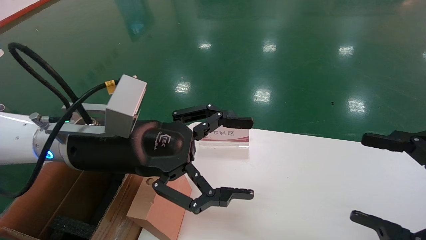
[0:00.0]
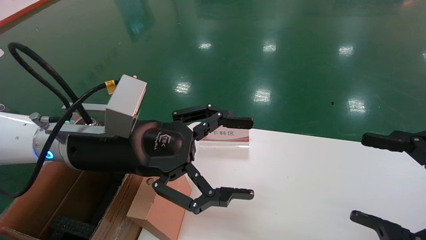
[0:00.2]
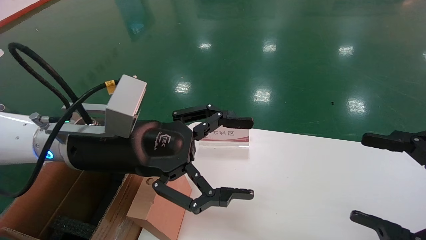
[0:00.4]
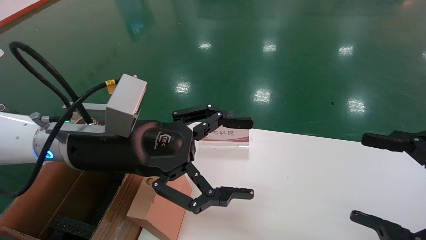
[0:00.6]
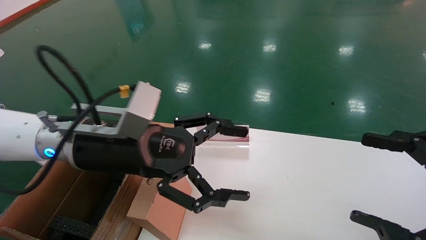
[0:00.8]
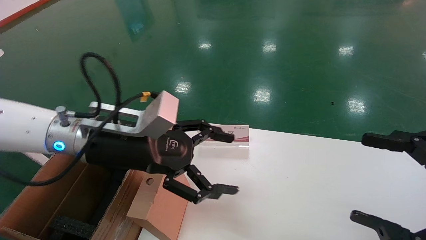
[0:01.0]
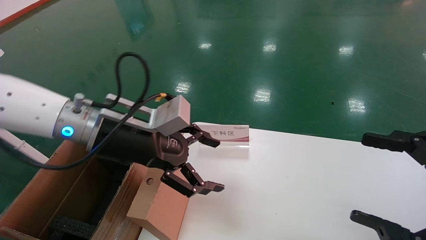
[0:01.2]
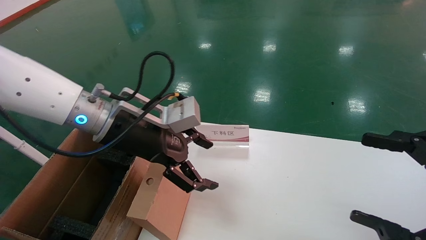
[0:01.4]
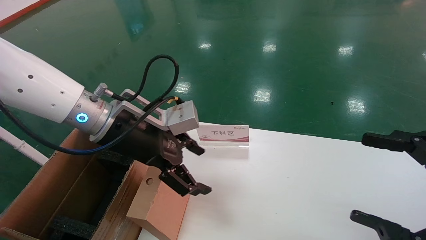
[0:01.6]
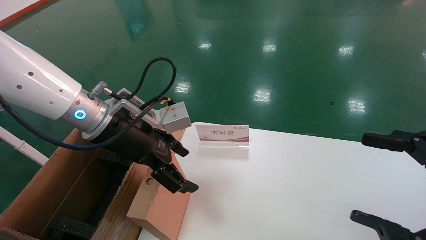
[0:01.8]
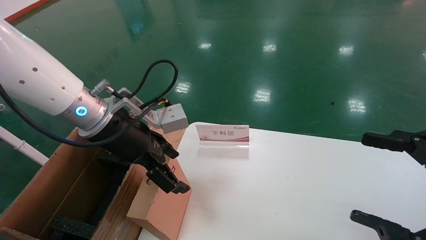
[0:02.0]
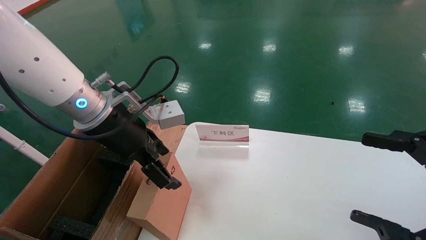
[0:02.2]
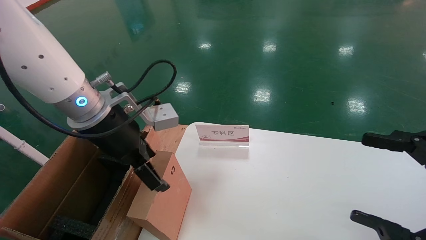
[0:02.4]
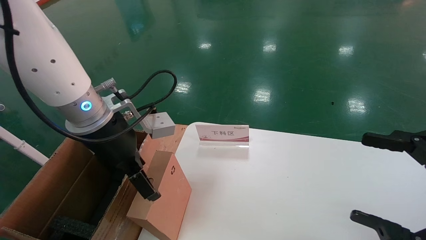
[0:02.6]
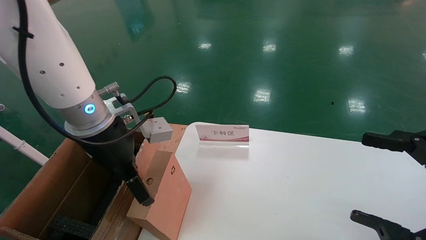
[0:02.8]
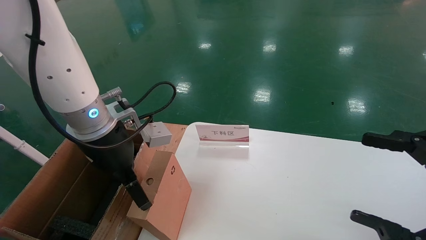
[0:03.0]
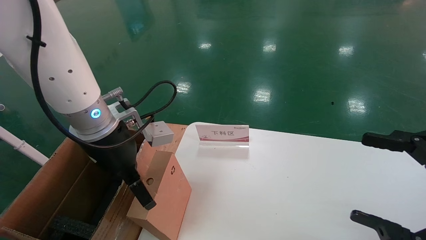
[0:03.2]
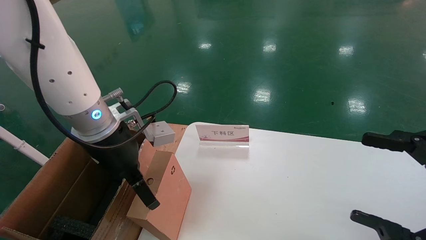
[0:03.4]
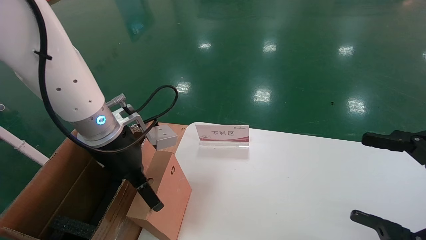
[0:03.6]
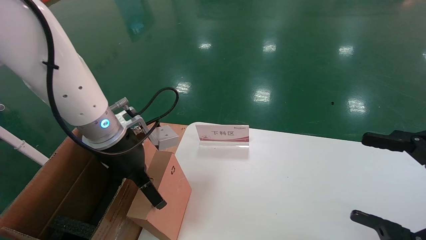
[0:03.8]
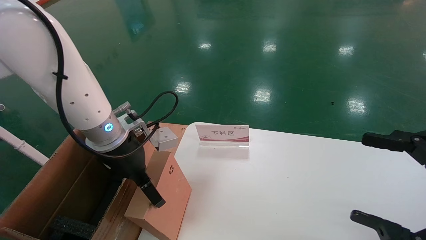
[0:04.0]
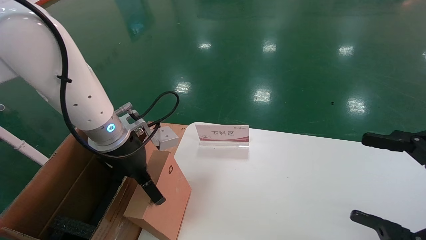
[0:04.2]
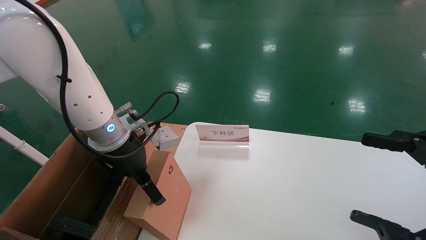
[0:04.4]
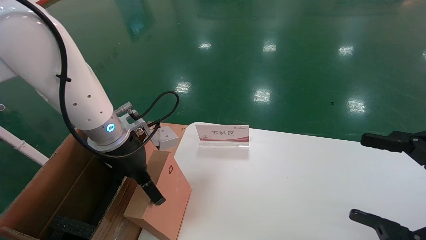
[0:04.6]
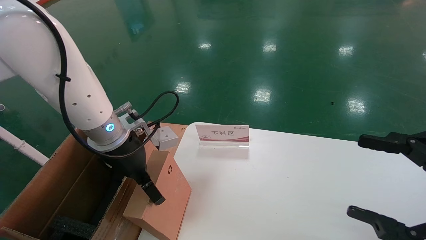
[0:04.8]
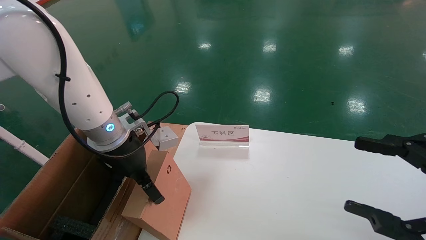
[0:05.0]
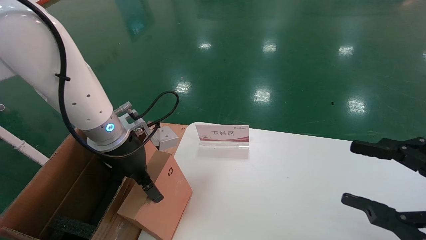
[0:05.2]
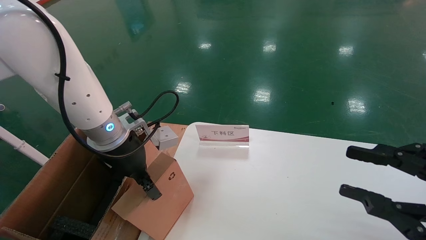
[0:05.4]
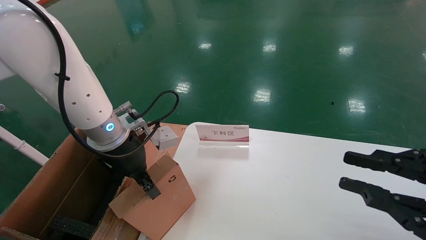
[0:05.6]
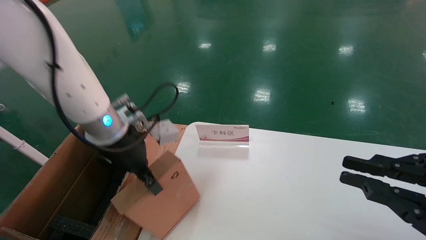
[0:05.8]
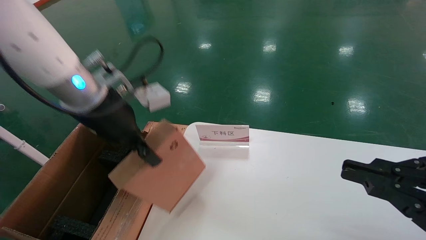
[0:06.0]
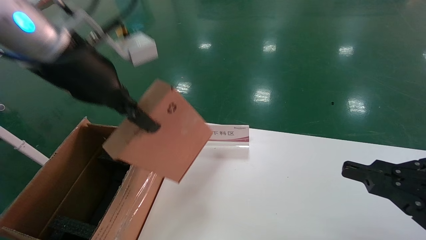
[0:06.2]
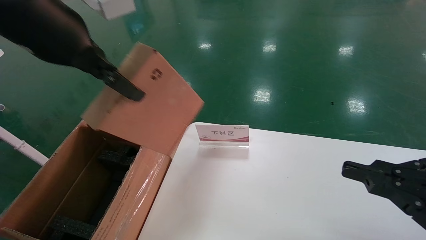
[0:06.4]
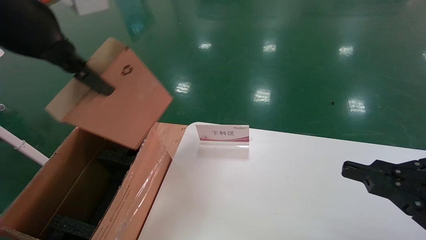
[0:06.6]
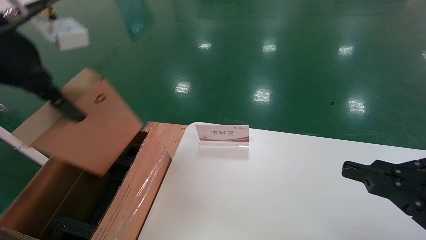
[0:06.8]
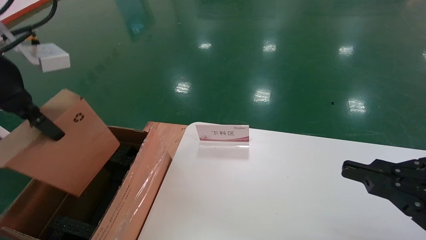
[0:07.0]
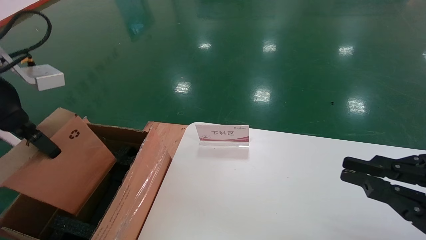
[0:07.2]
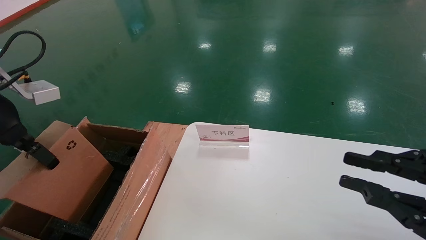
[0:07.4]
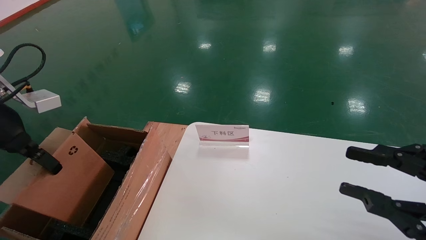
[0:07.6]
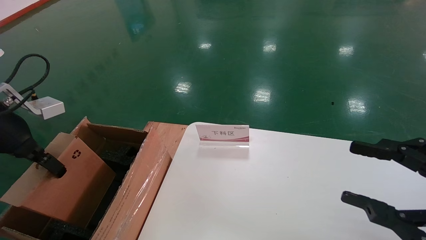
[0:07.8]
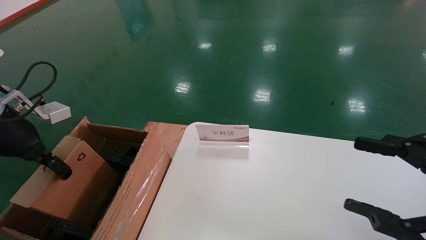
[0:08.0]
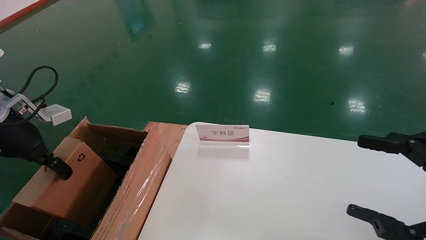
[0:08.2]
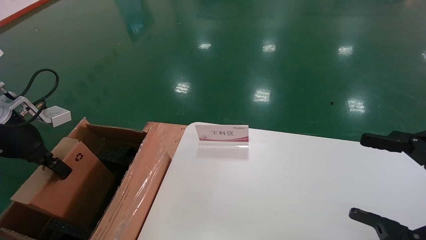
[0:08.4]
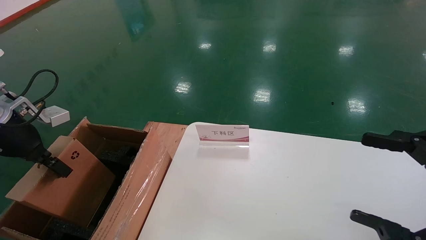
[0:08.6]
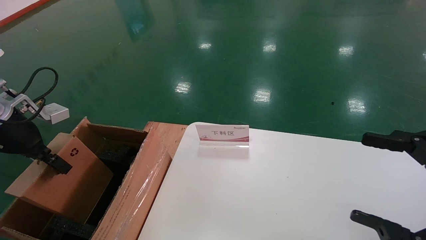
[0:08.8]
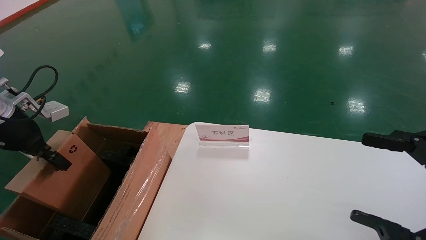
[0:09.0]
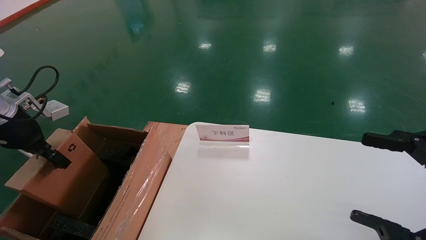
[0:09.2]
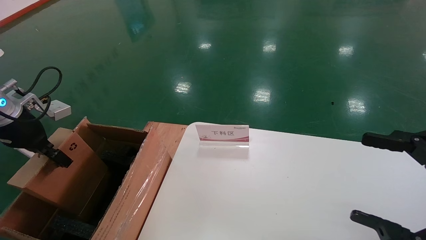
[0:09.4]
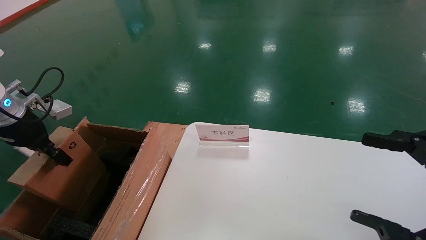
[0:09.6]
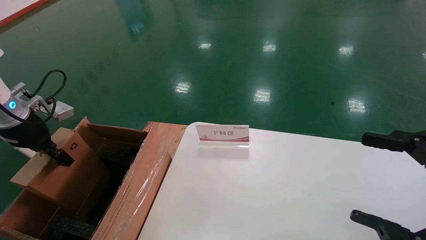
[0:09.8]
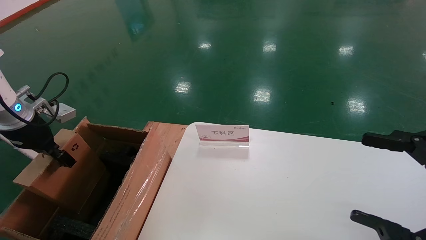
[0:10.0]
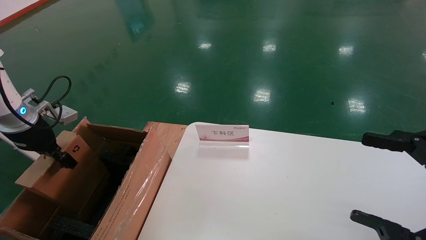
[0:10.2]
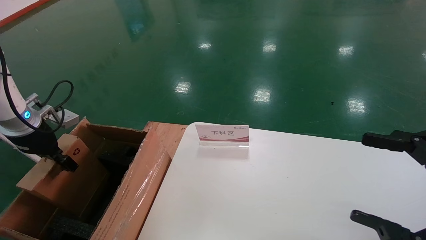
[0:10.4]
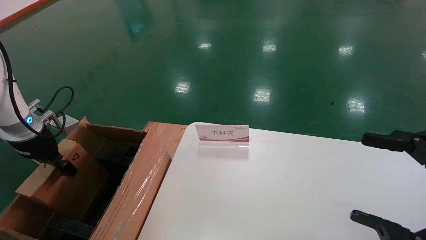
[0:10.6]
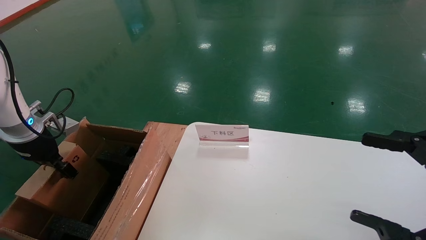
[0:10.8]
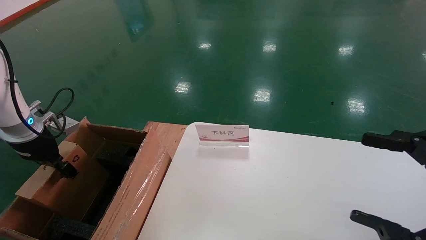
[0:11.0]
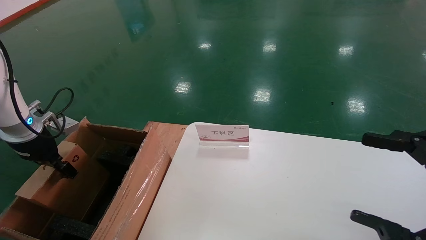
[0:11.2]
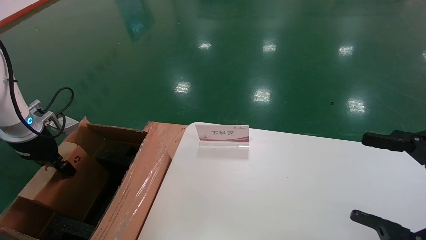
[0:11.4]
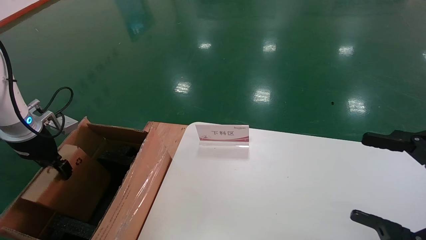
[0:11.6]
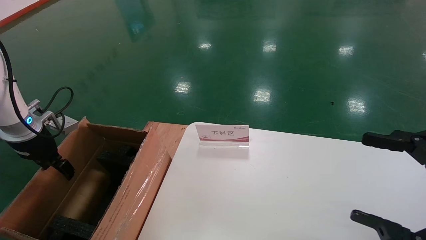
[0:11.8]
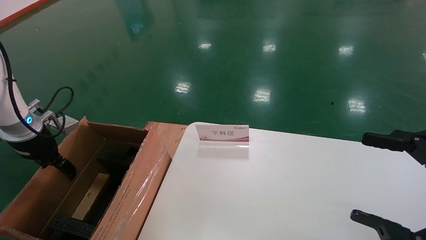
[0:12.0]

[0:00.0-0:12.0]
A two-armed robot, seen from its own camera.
Task of the whole recording: pick up the small cardboard box and load it into the large cardboard box.
Step, 0:01.0 to 0:05.0: Pick up the mouse and power cord box.
Step, 0:05.2 to 0:11.8: Place the mouse and power cord box into the case.
0:00.0 to 0:01.6: The left gripper moves forward, some 5 cm.
0:03.0 to 0:04.4: The left gripper shifts by roughly 5 cm.
0:04.4 to 0:06.0: The left gripper goes roughly 10 cm upward, and closes its fingers; the right gripper closes.
0:06.0 to 0:07.6: The left gripper shifts approximately 20 cm to the left.
0:07.6 to 0:09.0: The right gripper opens its fingers. Meanwhile the left gripper heads downward, to the left and forward, covering some 10 cm.
0:09.0 to 0:10.4: The left gripper moves about 5 cm.
0:10.4 to 0:12.0: The left gripper opens.

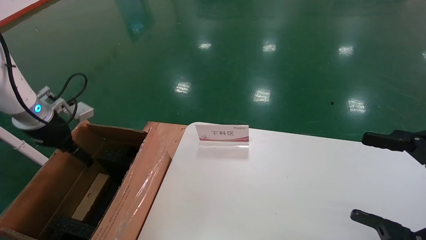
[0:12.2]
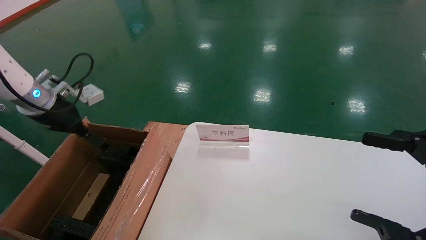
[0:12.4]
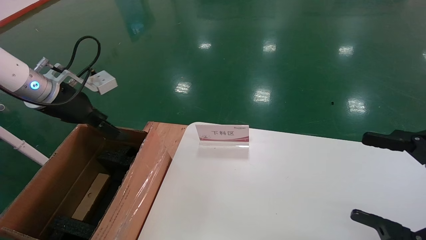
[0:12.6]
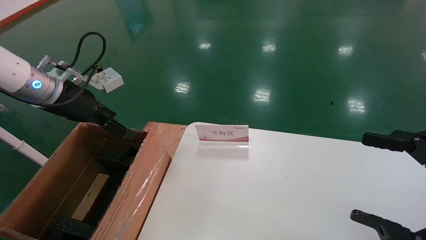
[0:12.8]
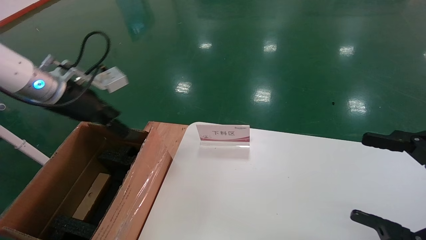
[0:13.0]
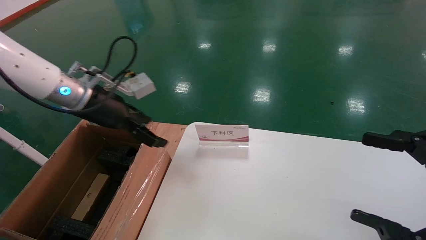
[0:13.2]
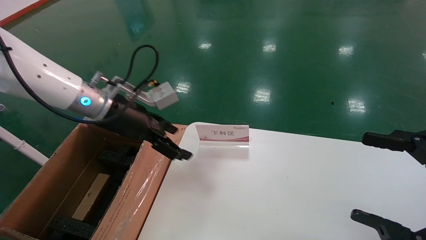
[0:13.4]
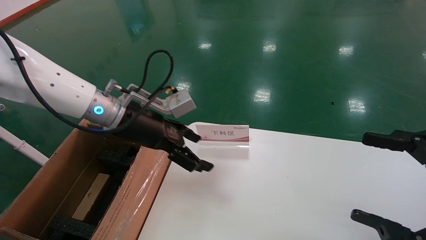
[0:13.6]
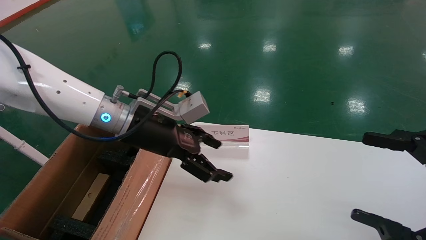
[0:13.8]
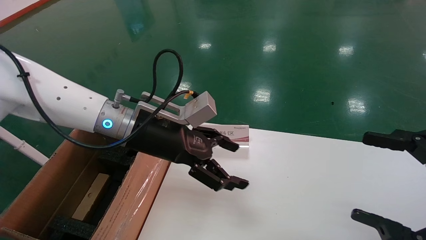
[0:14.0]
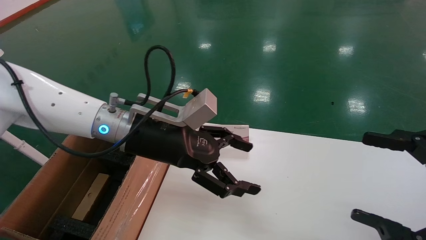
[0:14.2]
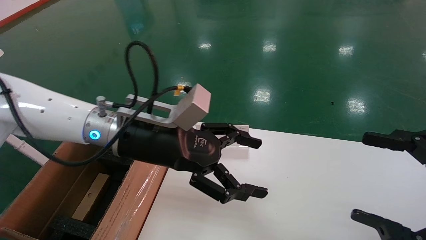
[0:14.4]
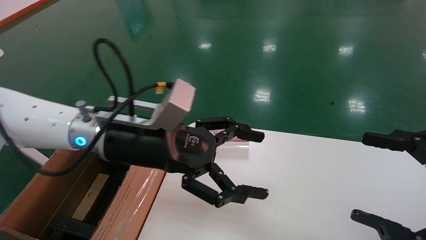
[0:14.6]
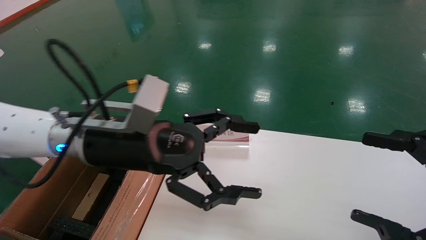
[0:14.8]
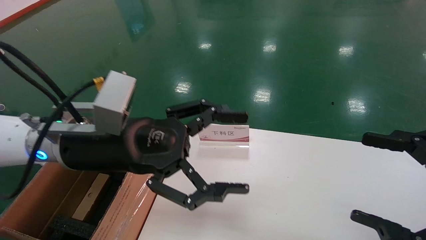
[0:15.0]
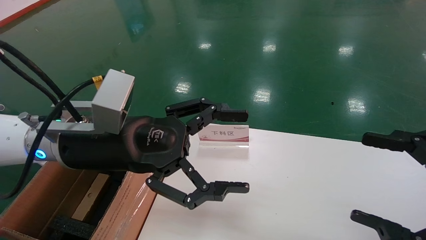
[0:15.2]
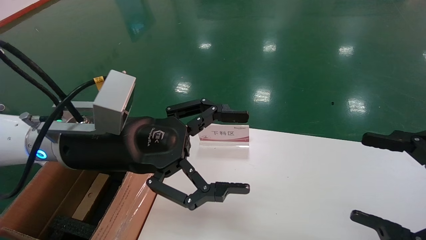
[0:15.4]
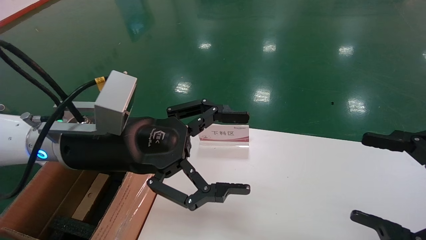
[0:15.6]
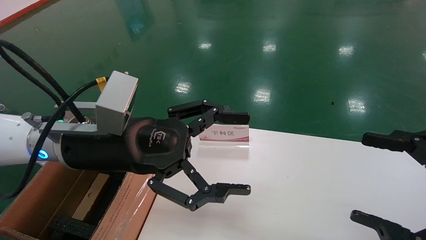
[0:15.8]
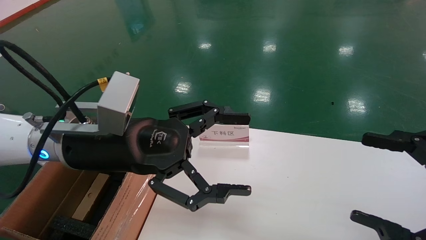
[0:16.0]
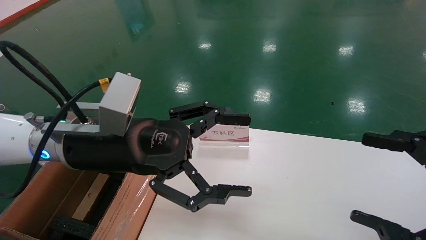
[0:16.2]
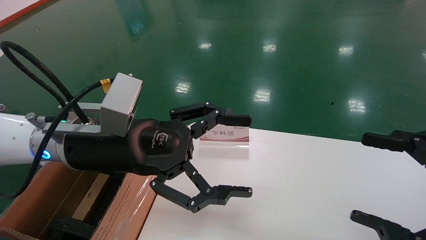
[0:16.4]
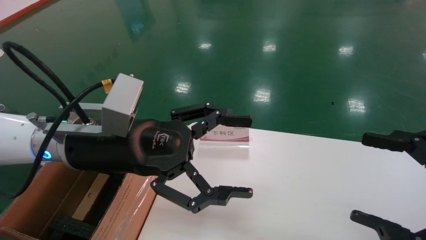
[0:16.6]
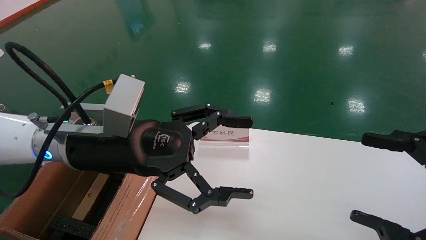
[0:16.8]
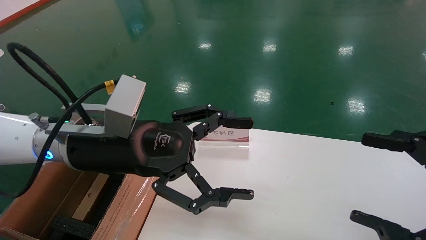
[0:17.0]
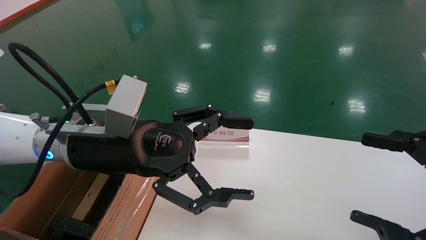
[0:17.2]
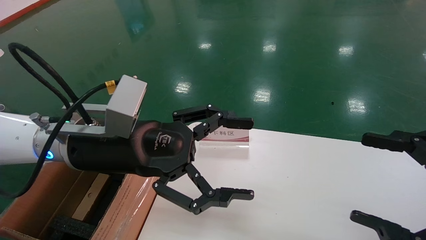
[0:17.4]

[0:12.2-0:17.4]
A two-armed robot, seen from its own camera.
Task of the whole recording: pick up the small cardboard box and load it into the large cardboard box.
0:12.2 to 0:14.0: The left gripper goes about 25 cm to the right.
0:14.0 to 0:15.6: The left gripper is displaced backward by approximately 10 cm.
0:15.6 to 0:17.4: Both grippers stay about where they are.
